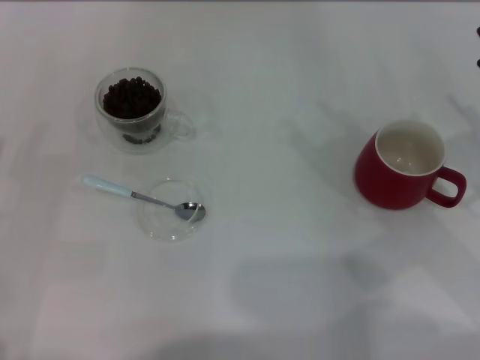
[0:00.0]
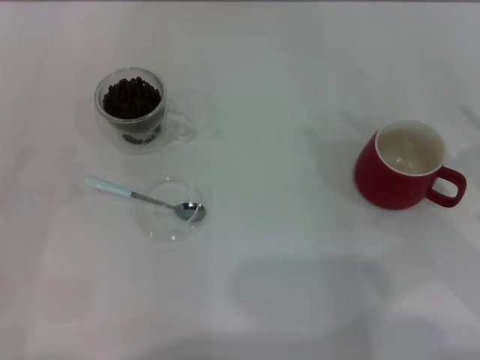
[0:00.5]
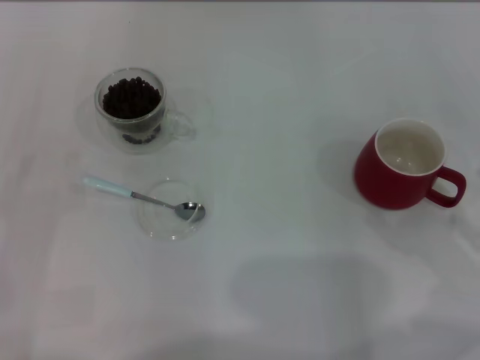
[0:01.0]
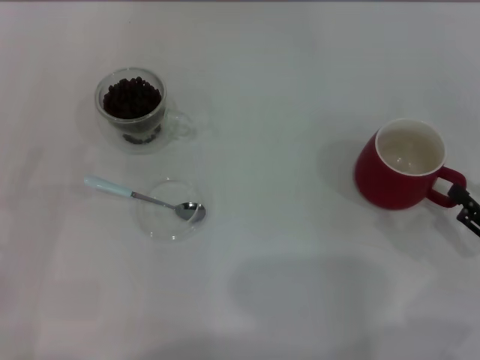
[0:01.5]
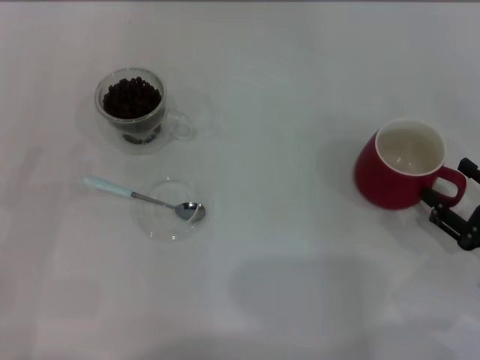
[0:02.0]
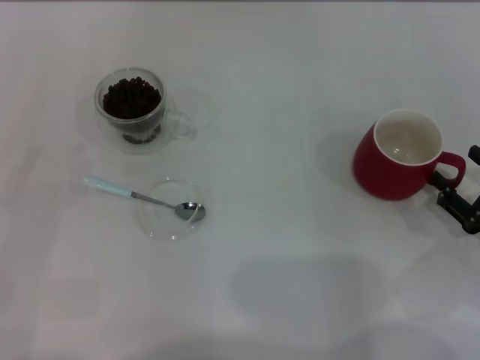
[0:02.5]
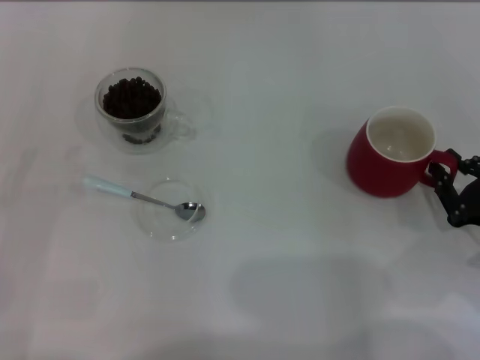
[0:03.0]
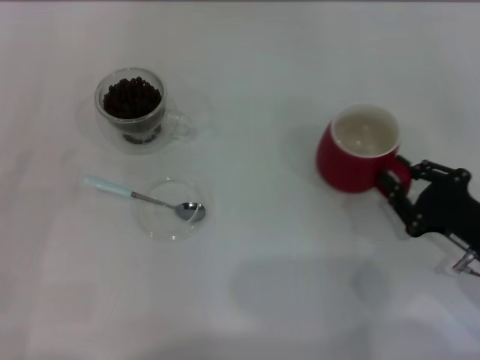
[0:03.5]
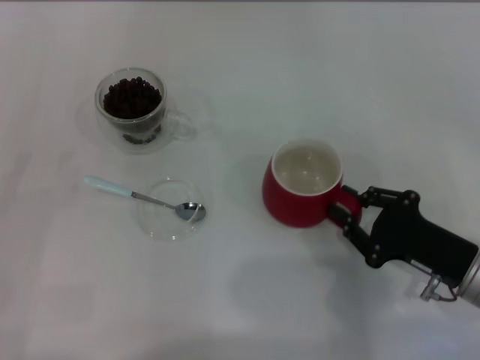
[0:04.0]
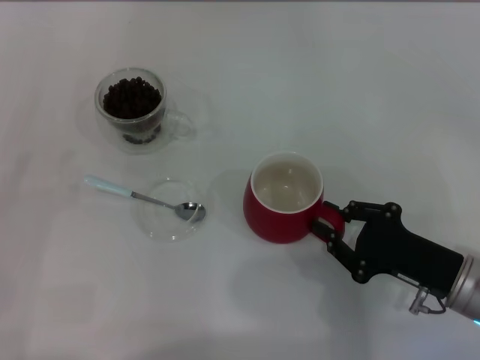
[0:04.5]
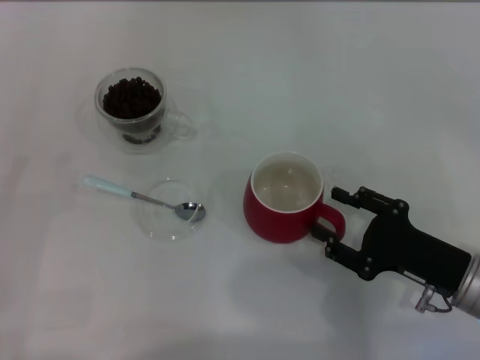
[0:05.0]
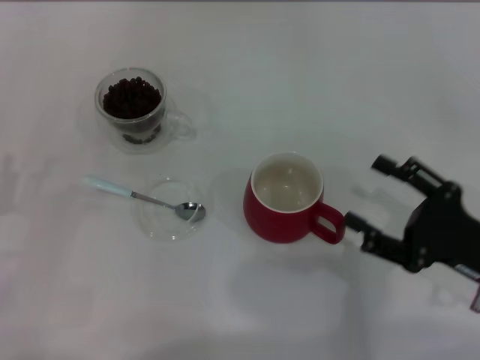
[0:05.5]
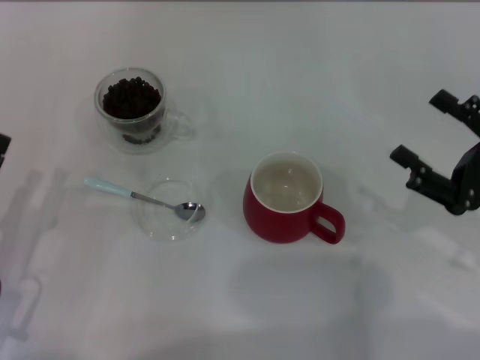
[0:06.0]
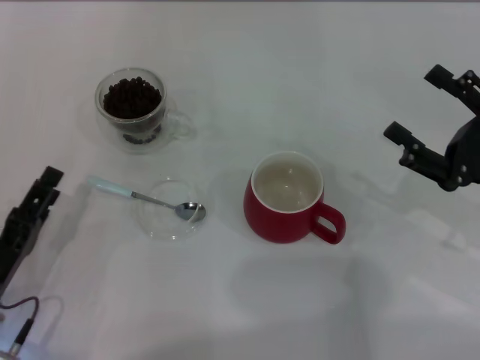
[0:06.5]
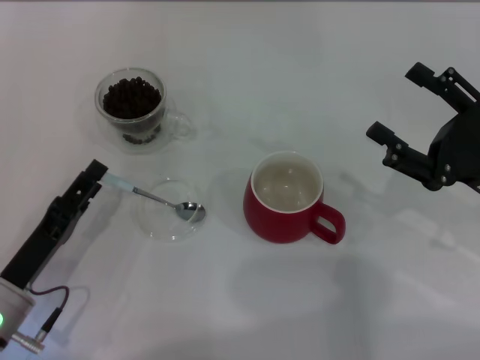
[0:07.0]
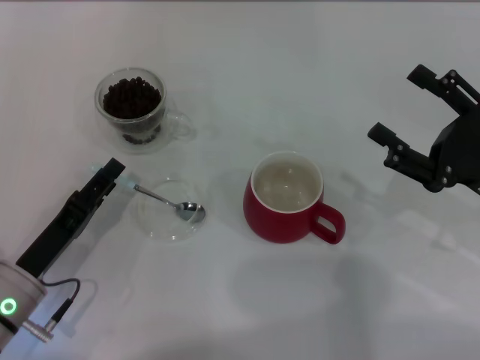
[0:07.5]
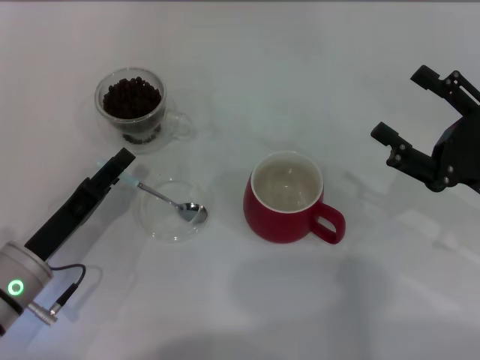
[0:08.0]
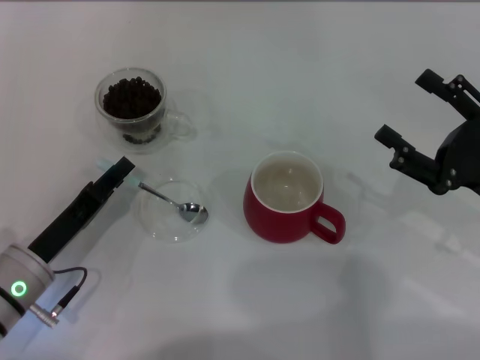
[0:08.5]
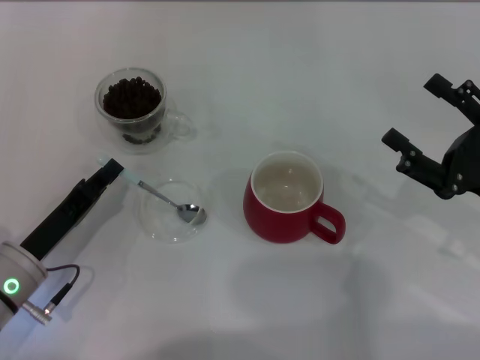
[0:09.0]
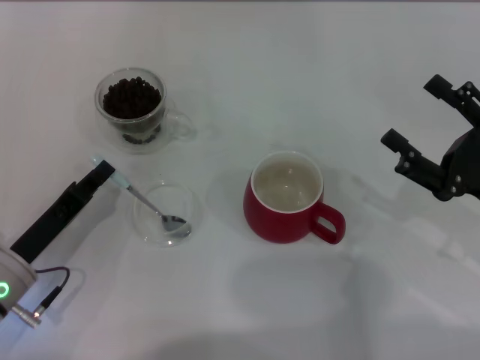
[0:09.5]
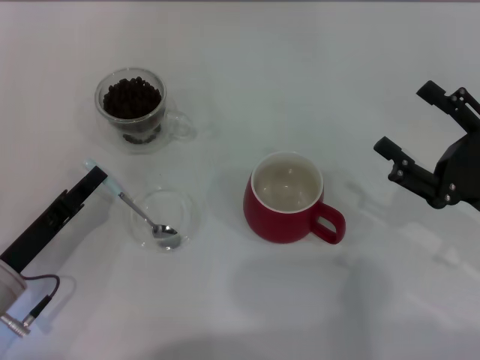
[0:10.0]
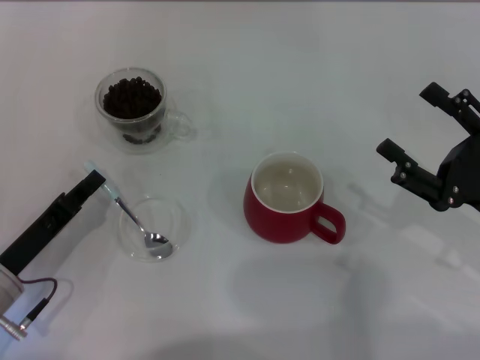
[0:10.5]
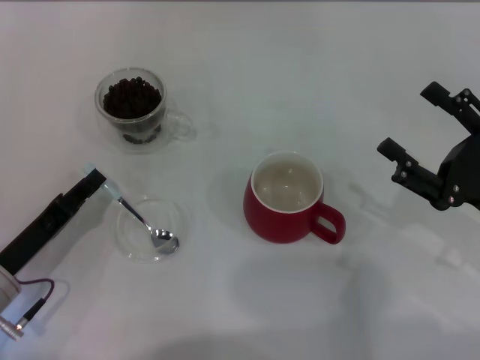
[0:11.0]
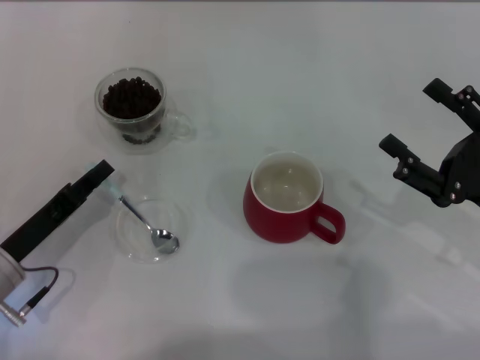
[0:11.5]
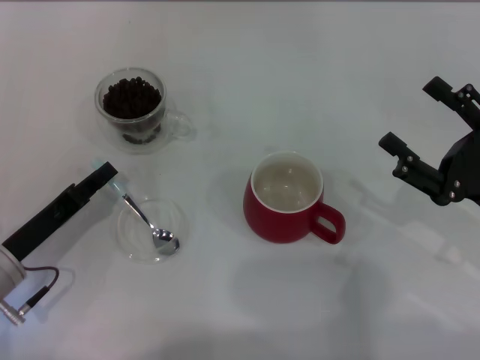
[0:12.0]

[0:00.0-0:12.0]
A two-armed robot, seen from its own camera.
Task of the whole recording: Use a blue spoon to take out the coffee beans from the glass and pour them into the red cup.
Step, 0:00.0 to 0:05.5: Move the cup to the center of view with the left gripper.
0:00.0 to 0:02.0: The right gripper goes some 10 cm downward and backward.
0:02.0 to 0:04.0: The right gripper is displaced to the left by some 5 cm, and closes up.
0:04.0 to 0:06.0: The right gripper travels upward by some 5 cm, and opens up, while the left gripper travels to the right by about 5 cm.
0:06.0 to 0:08.0: The left gripper ends up some 5 cm from where it was.
0:08.0 to 0:10.0: The left gripper closes.
0:10.0 to 0:12.0: The grippers stay close to where they were, moving slightly.

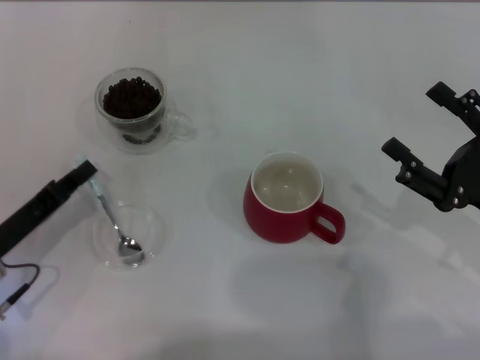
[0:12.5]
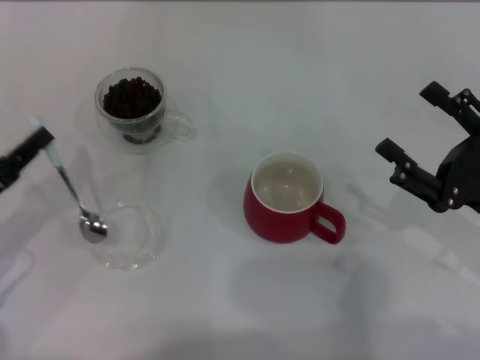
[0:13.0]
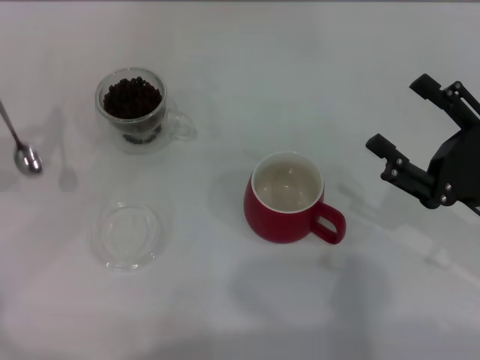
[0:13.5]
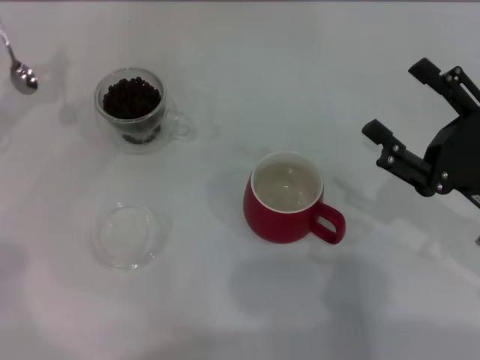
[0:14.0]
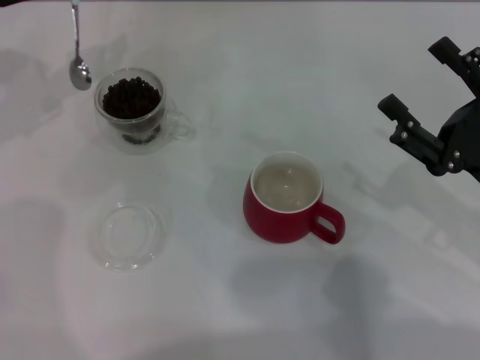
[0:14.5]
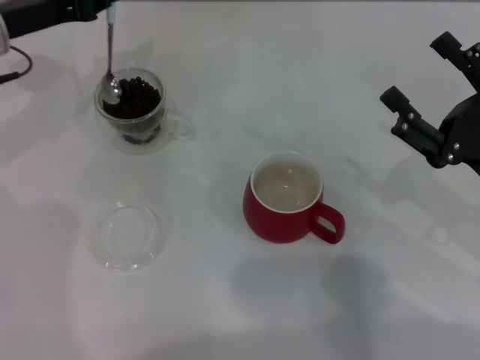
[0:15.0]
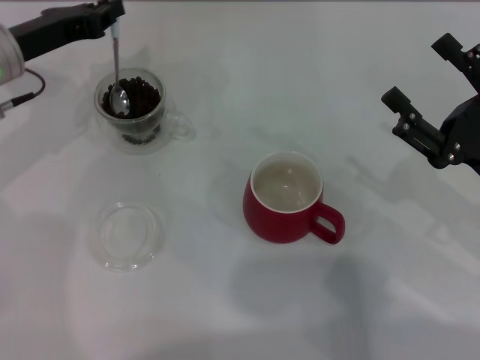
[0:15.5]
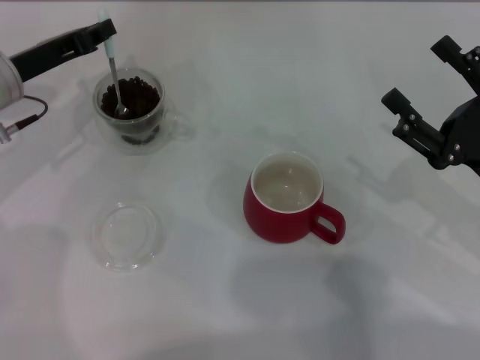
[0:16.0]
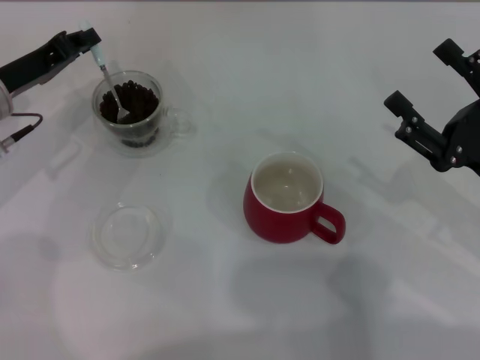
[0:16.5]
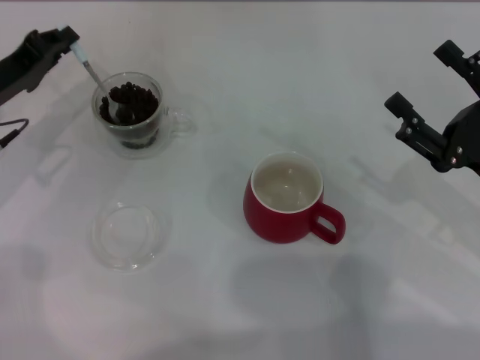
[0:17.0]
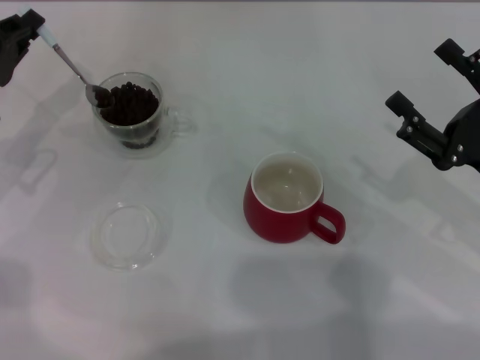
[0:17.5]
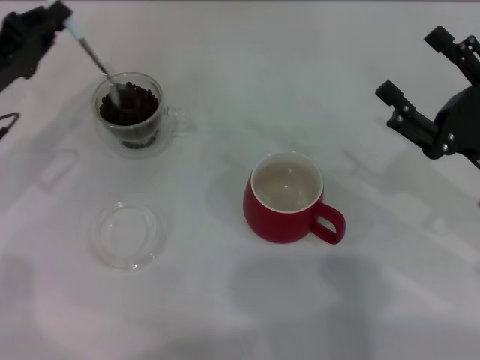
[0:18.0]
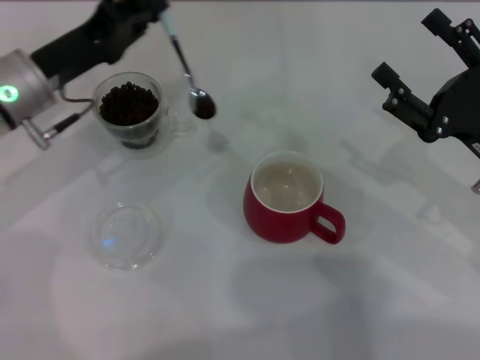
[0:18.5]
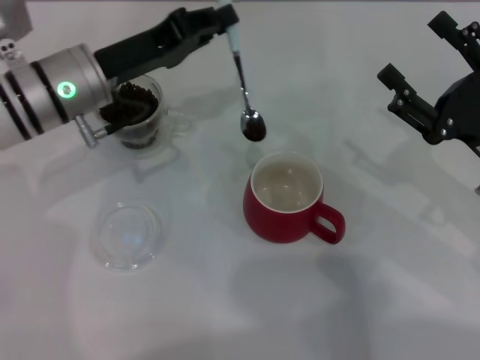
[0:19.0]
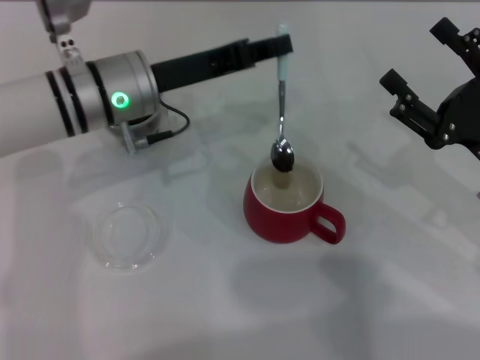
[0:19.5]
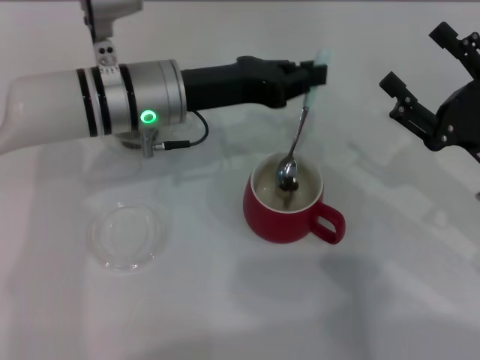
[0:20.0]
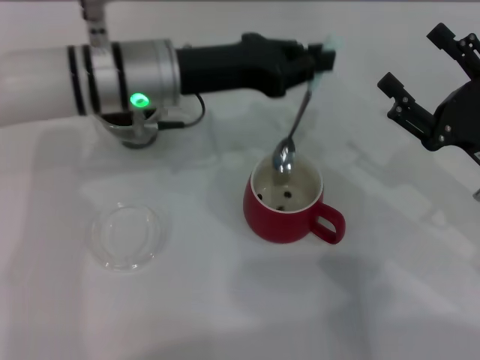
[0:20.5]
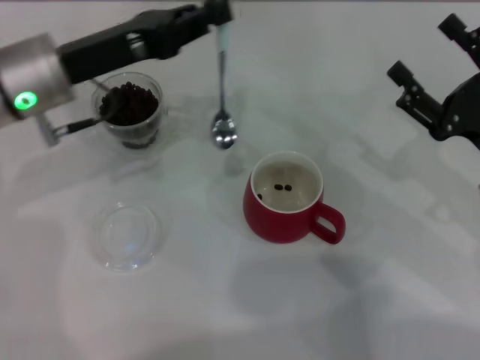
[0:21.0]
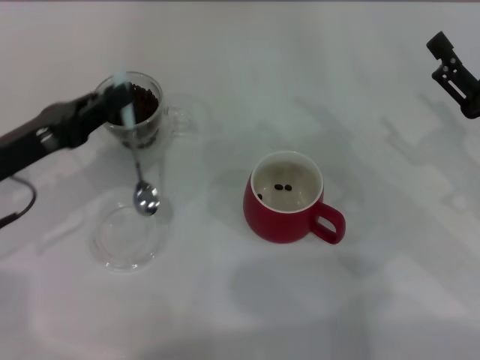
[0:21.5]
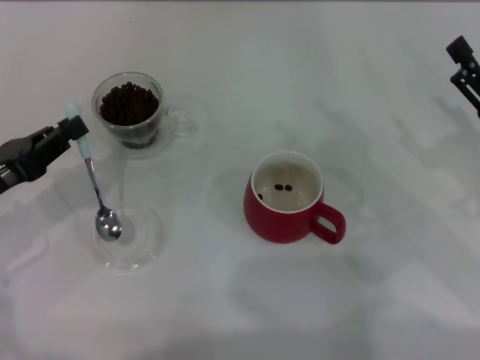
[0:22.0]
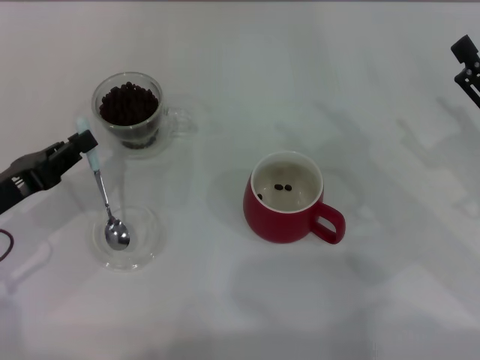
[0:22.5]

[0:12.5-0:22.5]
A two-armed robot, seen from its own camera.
Task of the whole recording: Use a blue spoon to take out the coffee beans from the glass and pour them into the red cup.
0:12.5 to 0:14.5: The left gripper shifts roughly 25 cm forward and upward.
0:14.5 to 0:16.5: The left gripper goes about 10 cm downward.
0:16.5 to 0:18.5: The left gripper goes about 5 cm to the right.
0:18.5 to 0:20.5: The left gripper travels to the right by some 10 cm.
0:20.5 to 0:22.5: The left gripper moves to the left, backward and downward, roughly 25 cm.

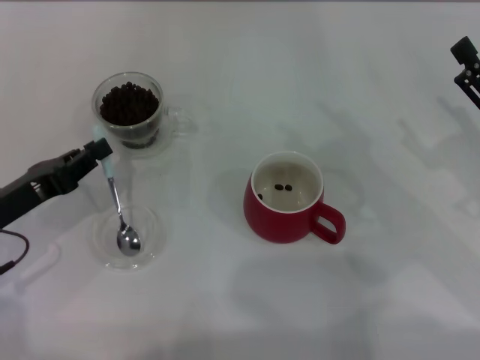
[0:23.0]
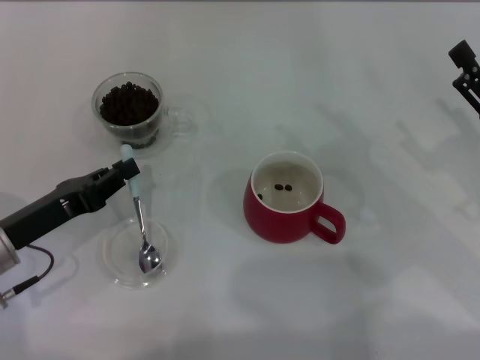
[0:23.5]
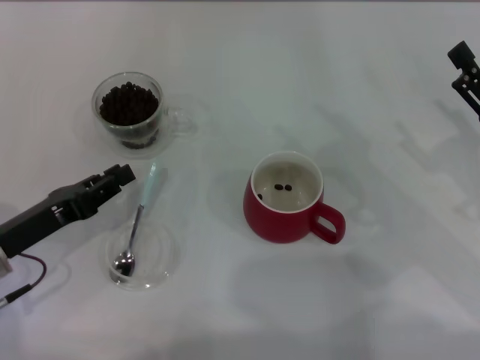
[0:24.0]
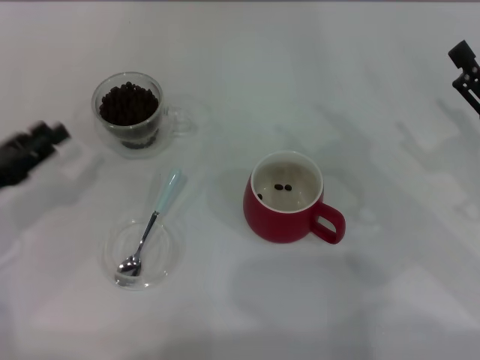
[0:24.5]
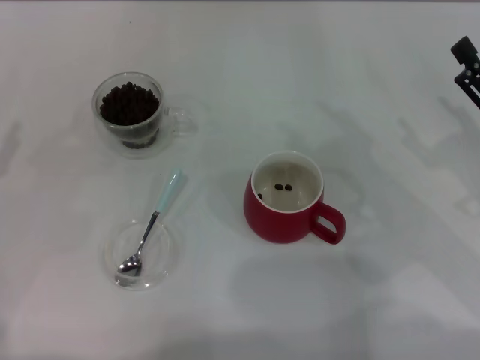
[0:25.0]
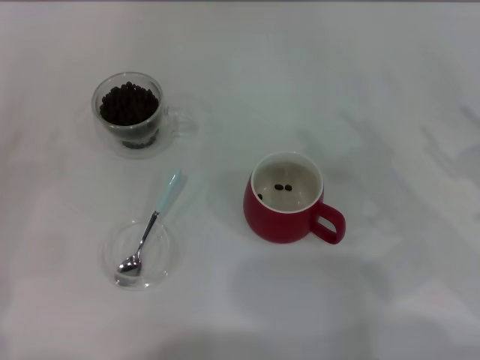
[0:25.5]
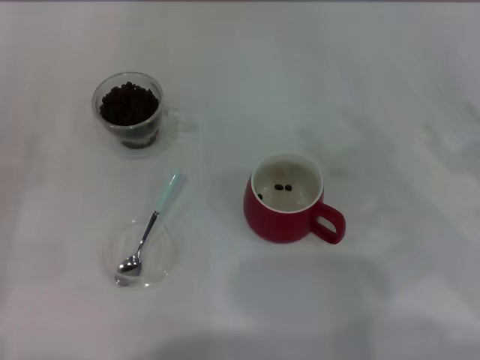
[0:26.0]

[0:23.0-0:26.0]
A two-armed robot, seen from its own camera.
Task of the whole recording: Use a blue spoon to take out the coffee beans from the glass and pour them into the red cup.
0:23.0 to 0:24.5: The left gripper opens up.
0:24.5 to 0:26.0: The left gripper shifts roughly 5 cm to the left.
